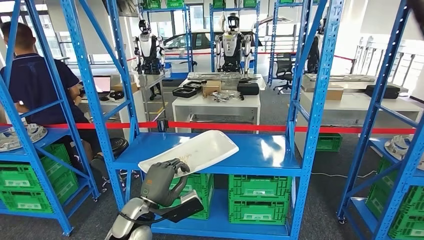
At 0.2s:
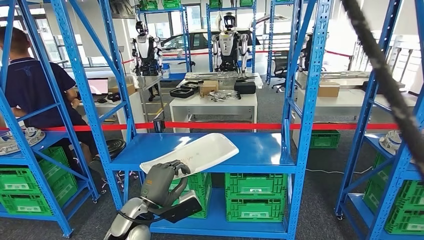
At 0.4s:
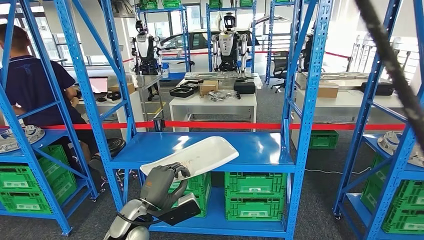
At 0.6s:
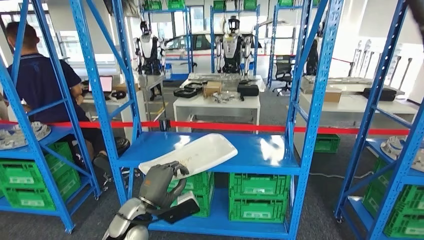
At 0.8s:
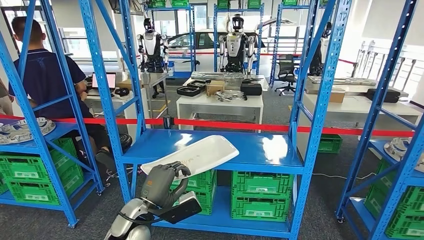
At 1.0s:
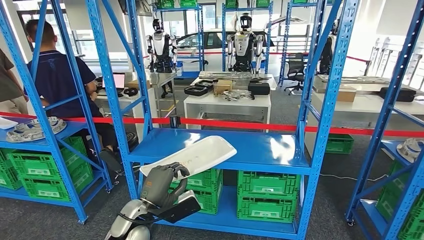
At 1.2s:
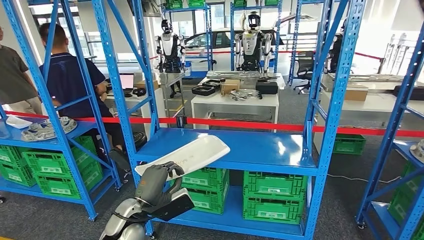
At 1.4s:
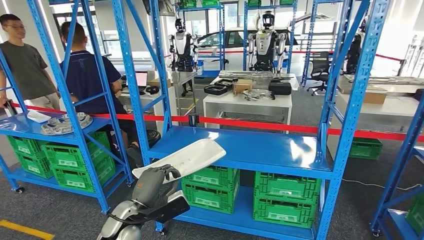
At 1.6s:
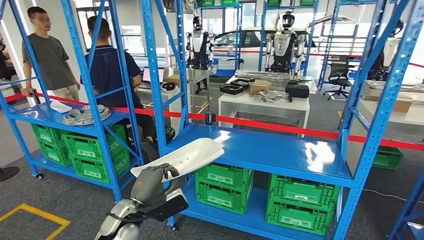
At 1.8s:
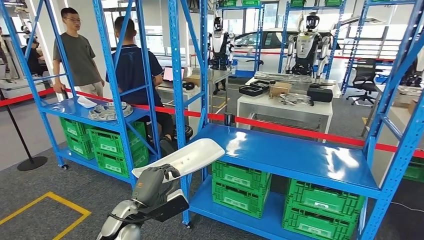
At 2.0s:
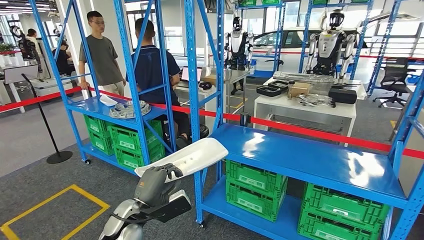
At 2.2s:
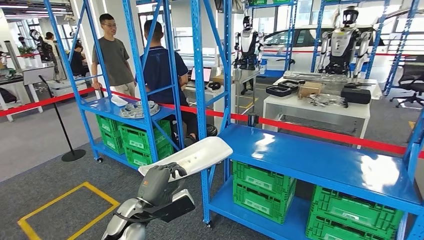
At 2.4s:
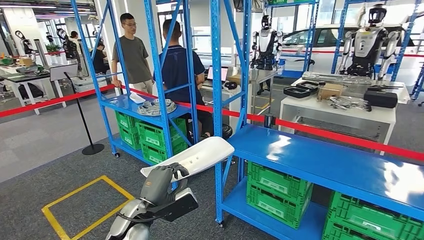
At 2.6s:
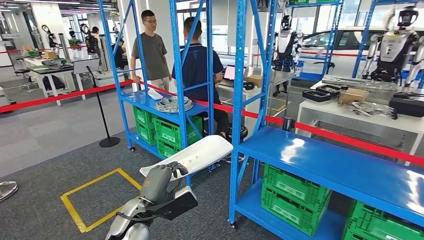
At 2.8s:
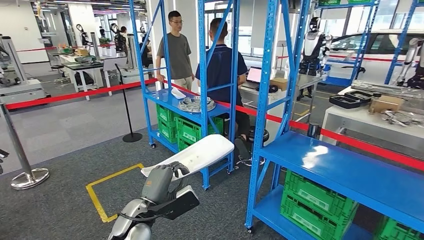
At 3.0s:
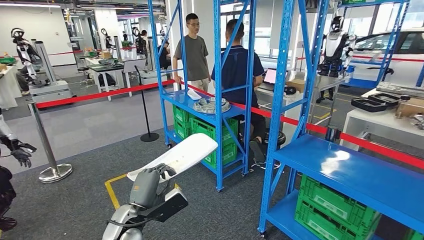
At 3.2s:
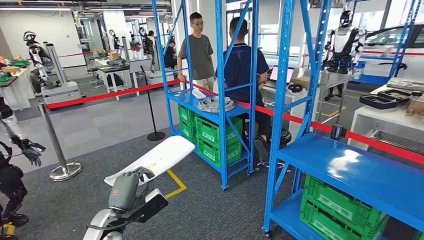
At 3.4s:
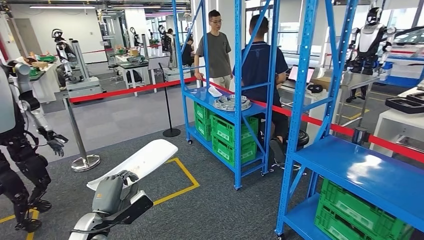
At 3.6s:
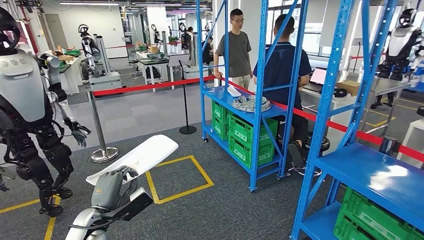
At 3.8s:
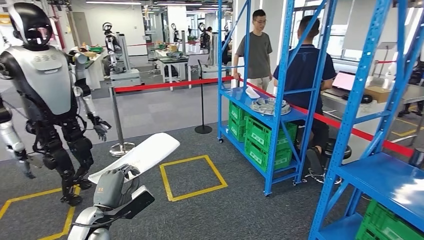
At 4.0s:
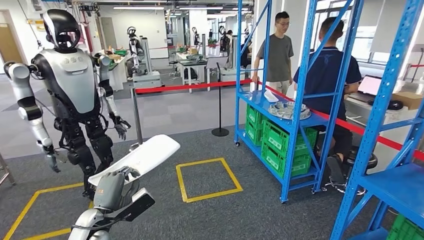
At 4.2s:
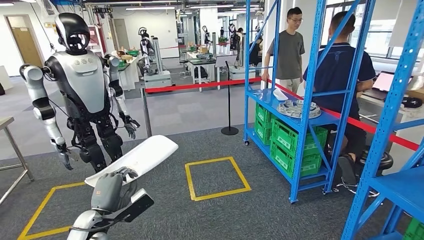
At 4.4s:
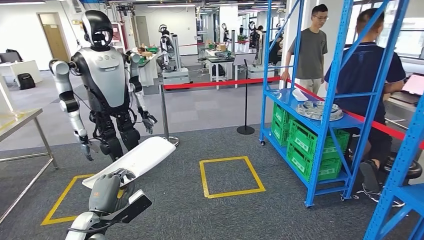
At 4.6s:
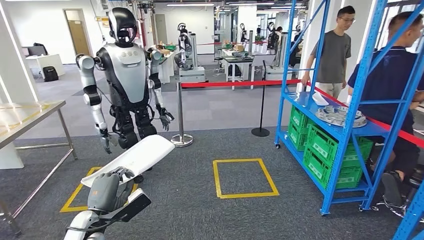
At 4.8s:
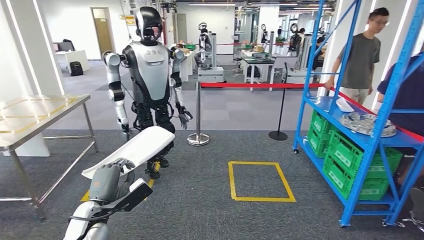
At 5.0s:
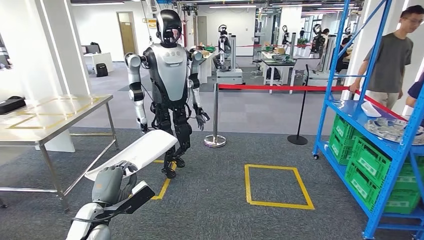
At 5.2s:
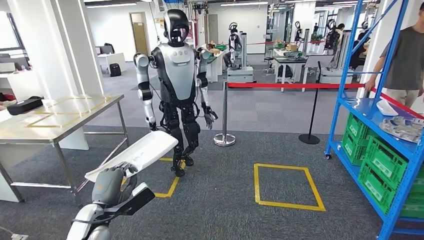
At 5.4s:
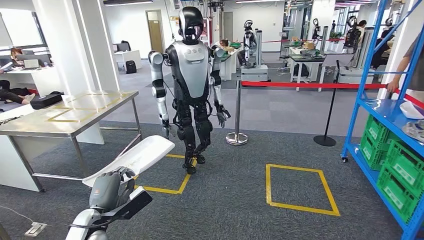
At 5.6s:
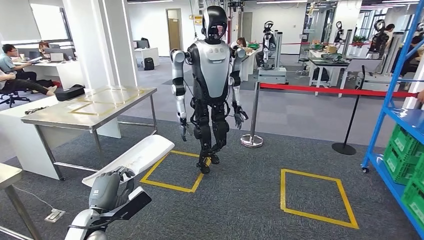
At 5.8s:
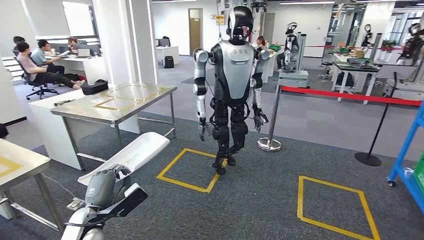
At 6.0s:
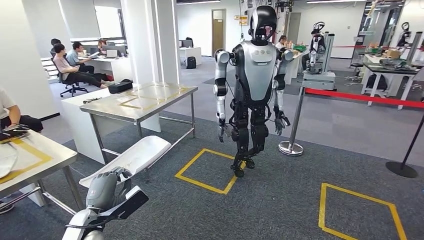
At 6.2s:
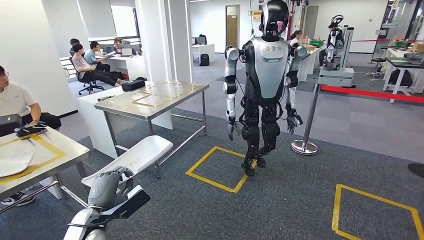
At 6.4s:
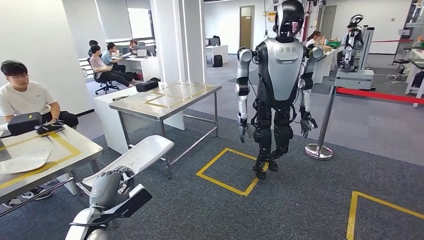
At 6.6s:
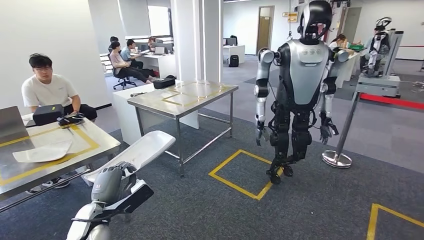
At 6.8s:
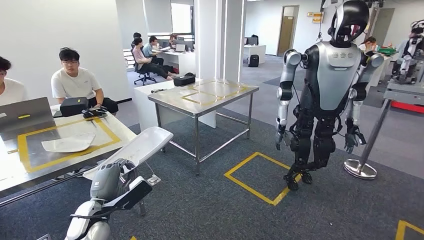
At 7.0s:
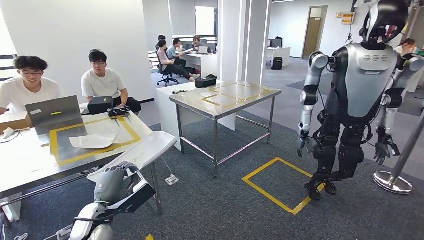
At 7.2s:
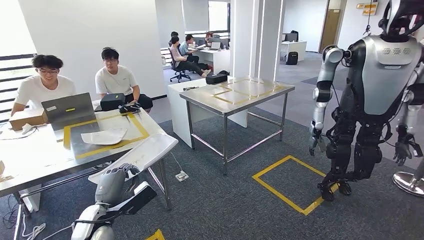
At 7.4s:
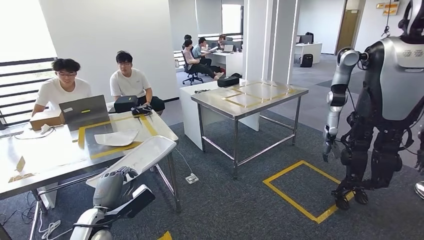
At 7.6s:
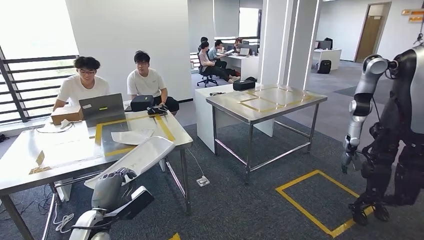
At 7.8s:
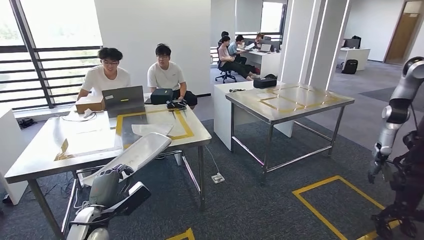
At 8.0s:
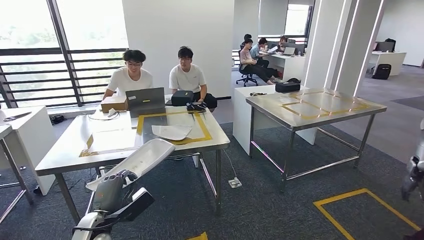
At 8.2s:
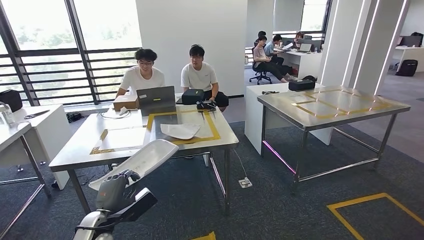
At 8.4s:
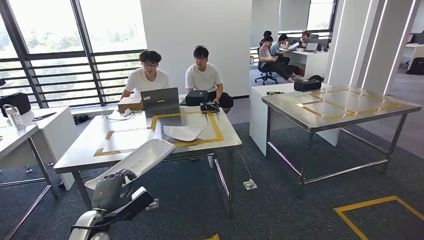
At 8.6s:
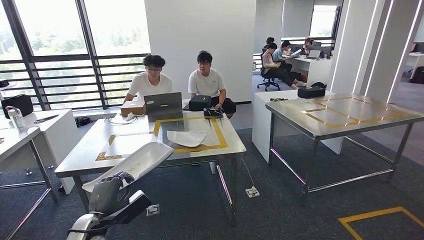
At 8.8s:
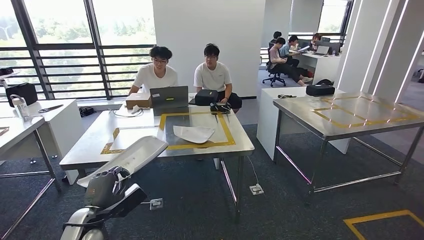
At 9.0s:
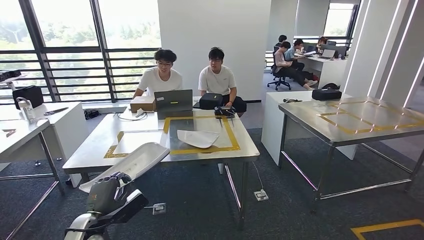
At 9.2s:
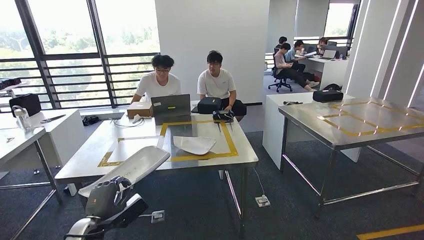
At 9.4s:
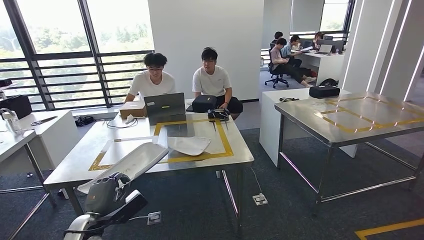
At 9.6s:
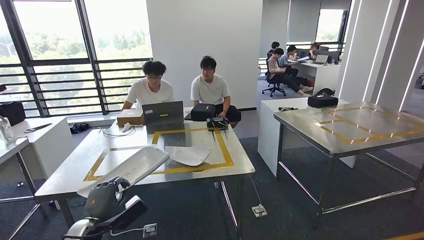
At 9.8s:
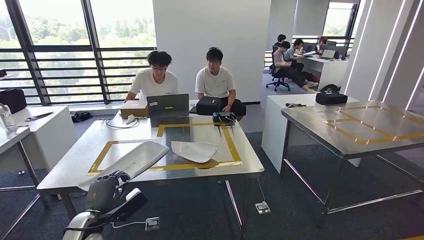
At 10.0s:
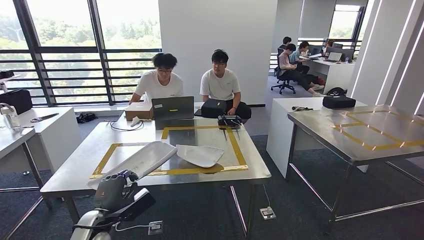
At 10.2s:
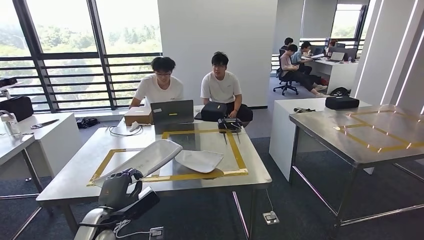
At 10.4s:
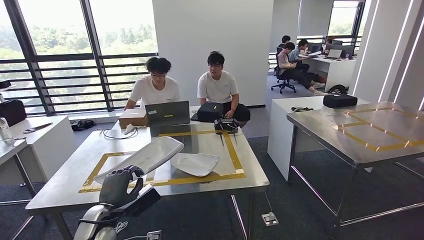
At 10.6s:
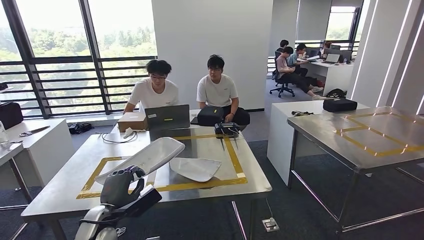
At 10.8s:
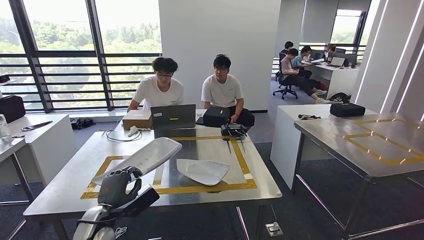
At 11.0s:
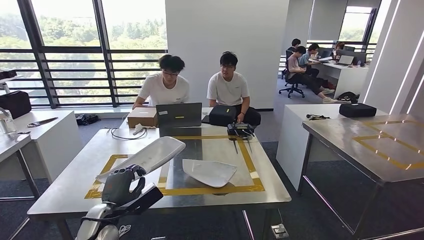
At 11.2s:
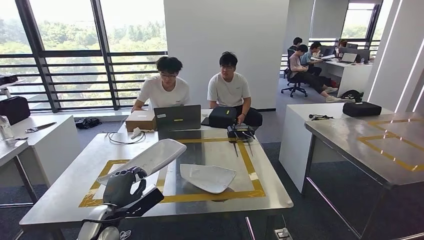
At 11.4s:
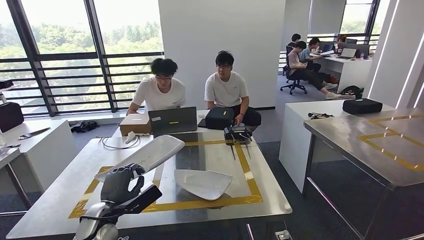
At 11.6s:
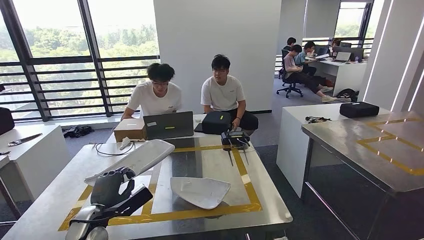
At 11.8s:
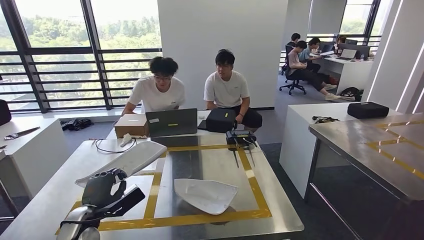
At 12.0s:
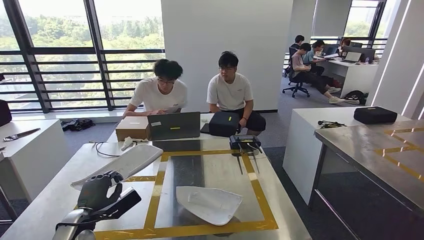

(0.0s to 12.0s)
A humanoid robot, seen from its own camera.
Step, 0.0s - 9.0s: Move the small parts to the workbench.

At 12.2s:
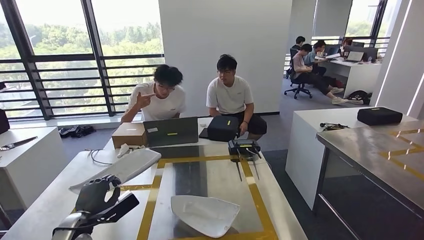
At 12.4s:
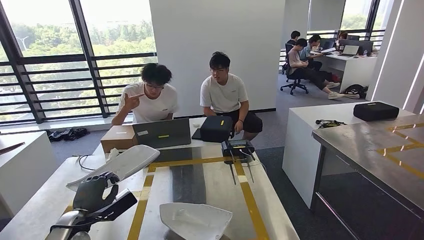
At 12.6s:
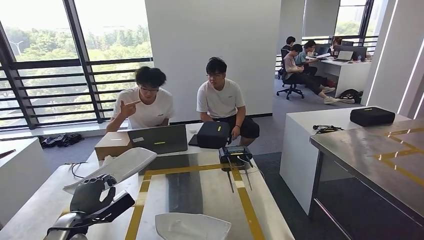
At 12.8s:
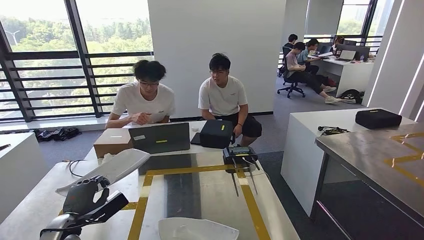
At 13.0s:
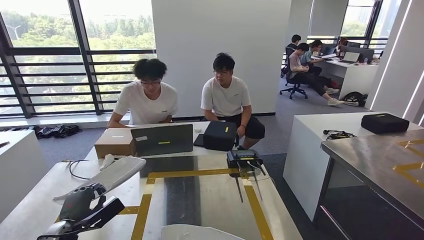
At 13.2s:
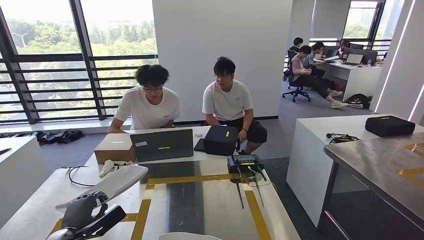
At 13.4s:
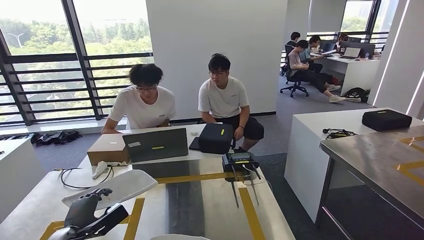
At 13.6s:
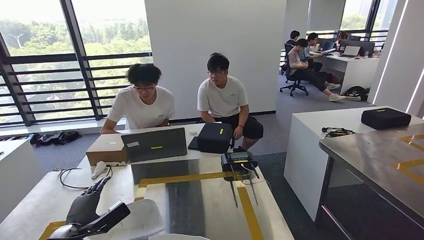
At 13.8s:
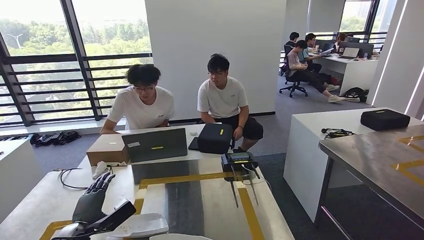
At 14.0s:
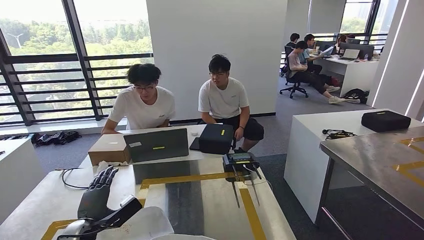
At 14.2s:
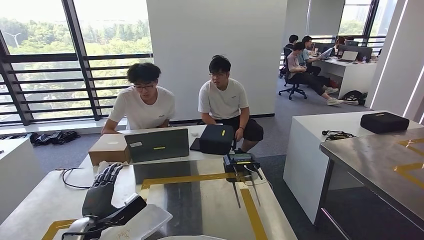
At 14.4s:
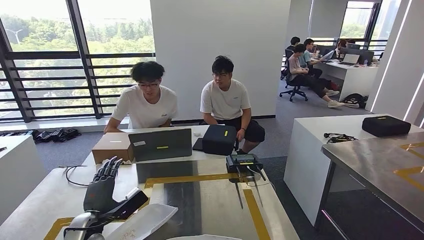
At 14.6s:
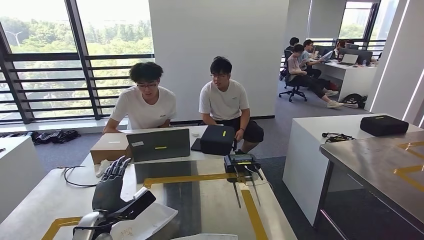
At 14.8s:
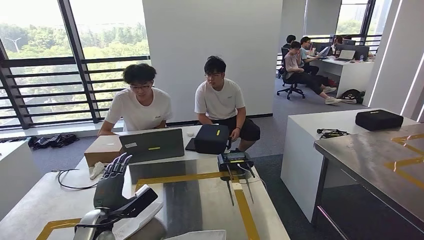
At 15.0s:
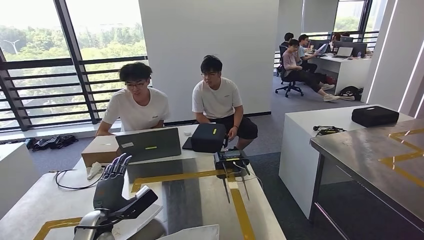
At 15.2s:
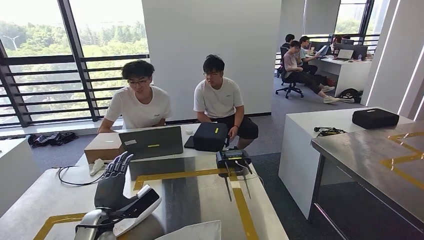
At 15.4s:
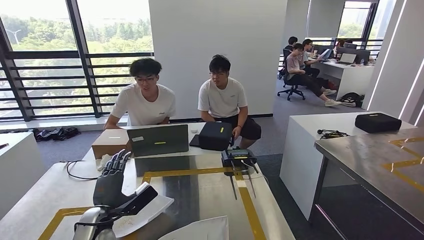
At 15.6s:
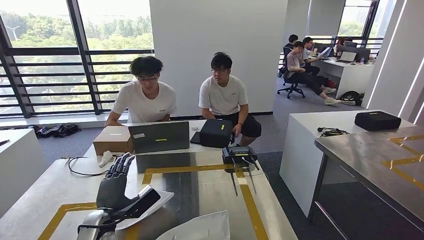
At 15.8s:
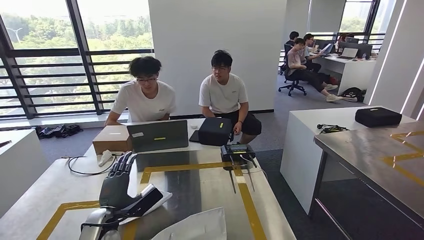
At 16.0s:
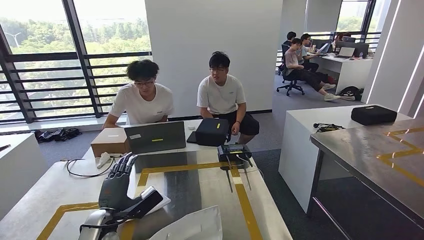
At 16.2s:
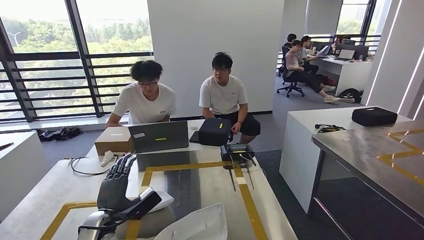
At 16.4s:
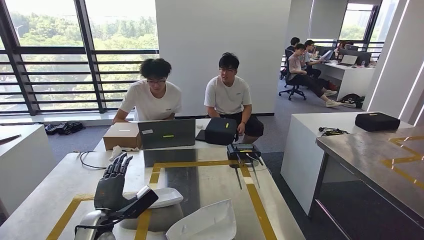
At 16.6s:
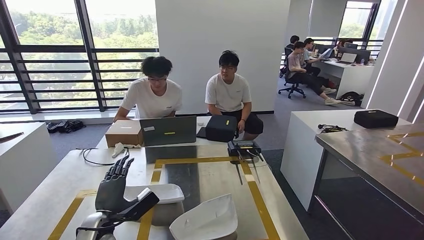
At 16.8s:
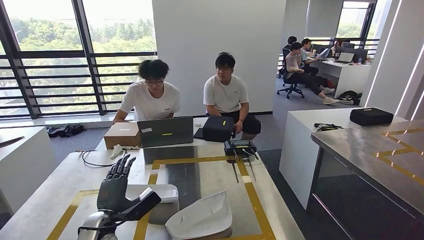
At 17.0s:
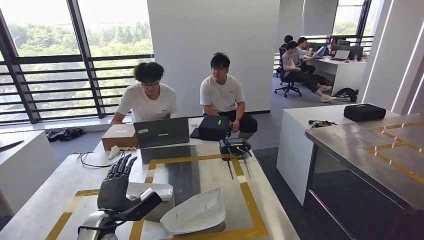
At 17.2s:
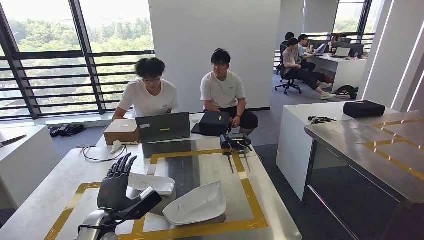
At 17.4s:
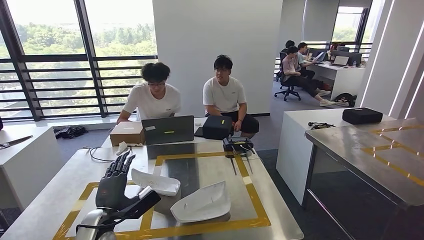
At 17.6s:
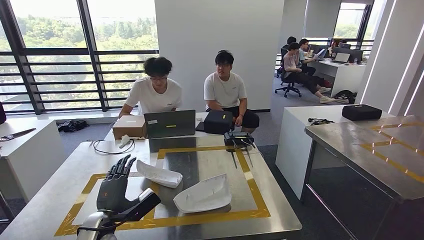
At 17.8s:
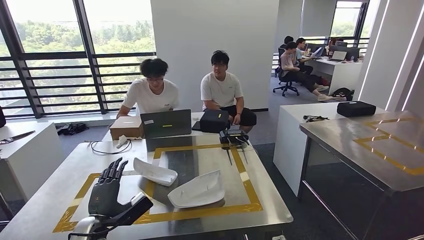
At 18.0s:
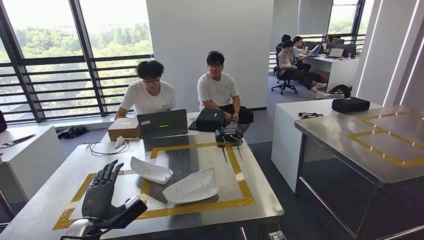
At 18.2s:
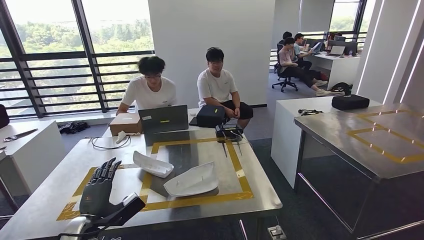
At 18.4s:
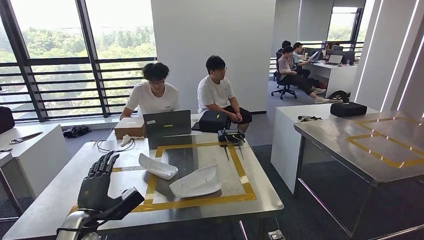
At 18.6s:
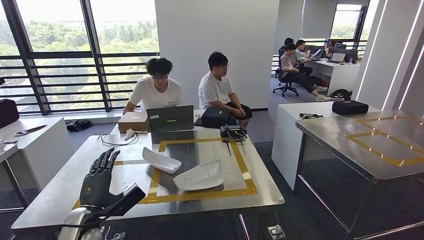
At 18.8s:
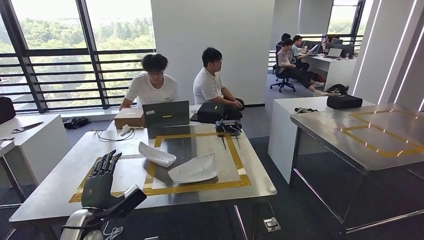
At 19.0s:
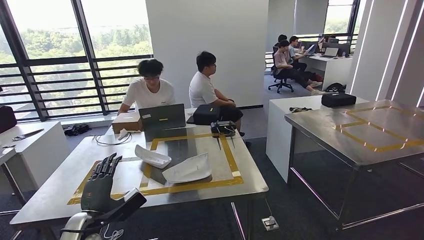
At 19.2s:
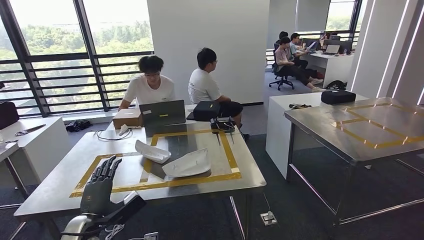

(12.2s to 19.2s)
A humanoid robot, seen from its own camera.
Step, 12.2s - 15.2s: Insert the small parts into the corresponding holes on the workbench.
